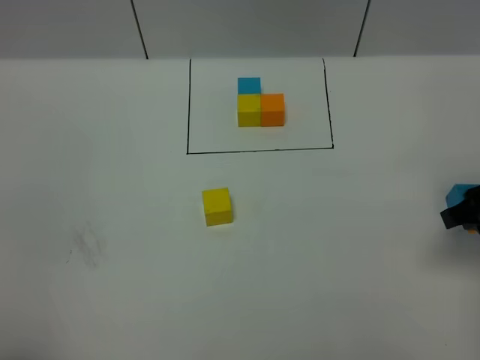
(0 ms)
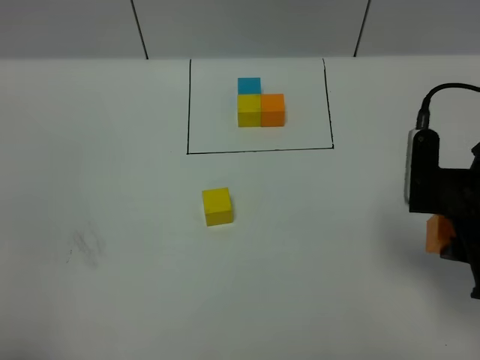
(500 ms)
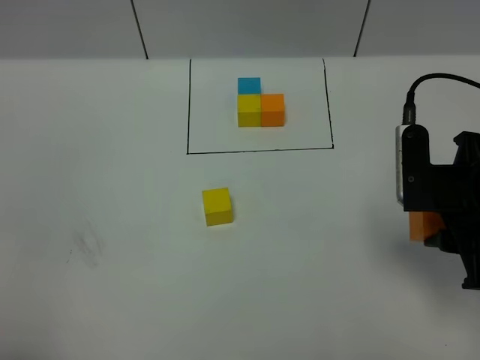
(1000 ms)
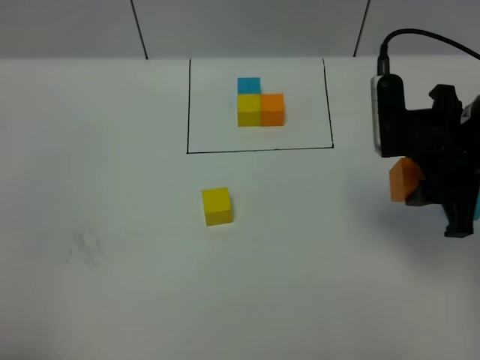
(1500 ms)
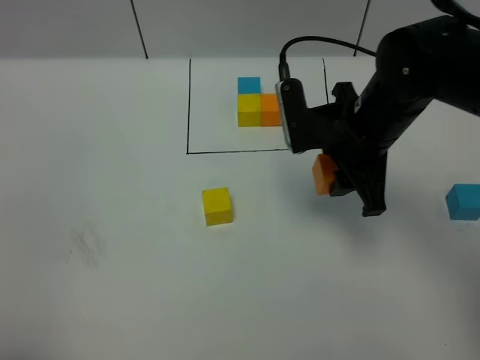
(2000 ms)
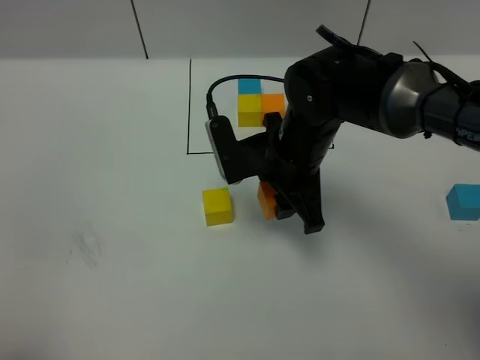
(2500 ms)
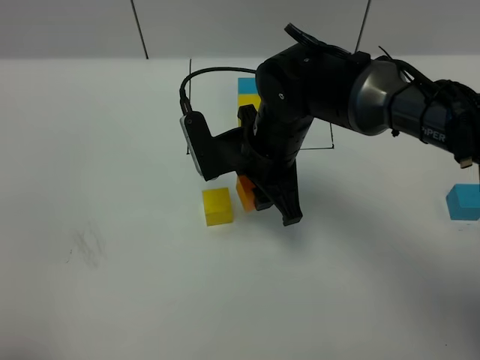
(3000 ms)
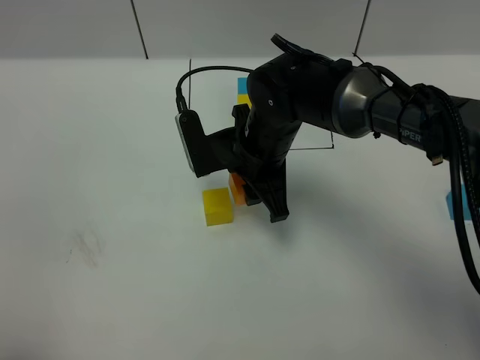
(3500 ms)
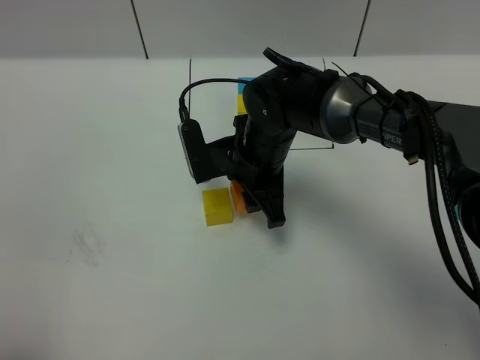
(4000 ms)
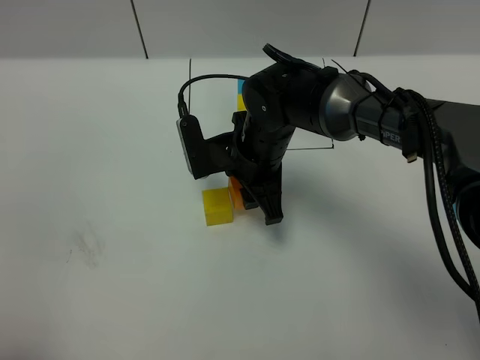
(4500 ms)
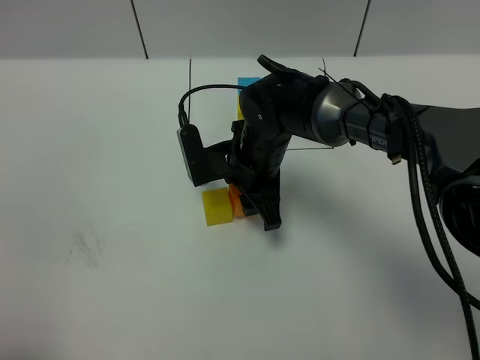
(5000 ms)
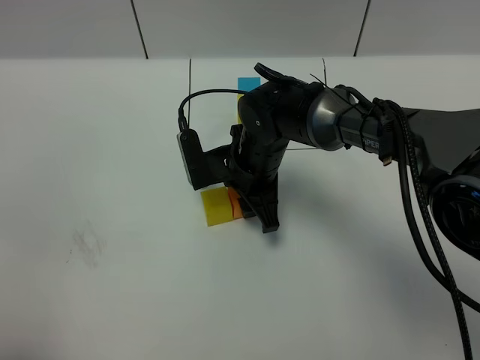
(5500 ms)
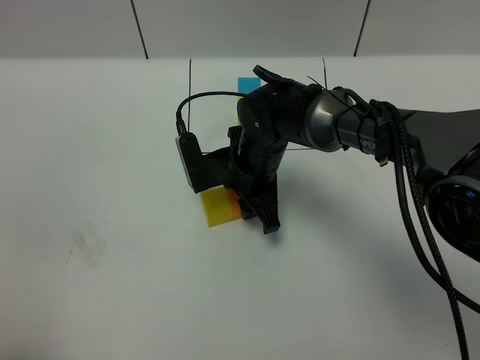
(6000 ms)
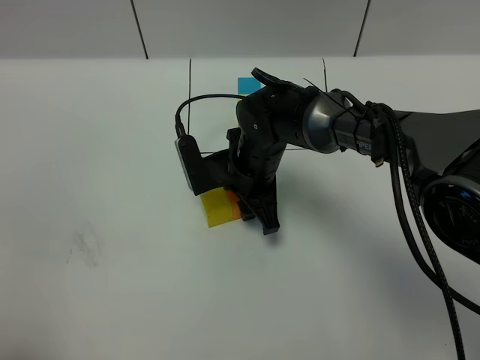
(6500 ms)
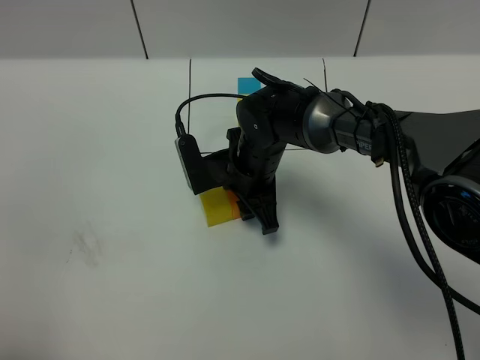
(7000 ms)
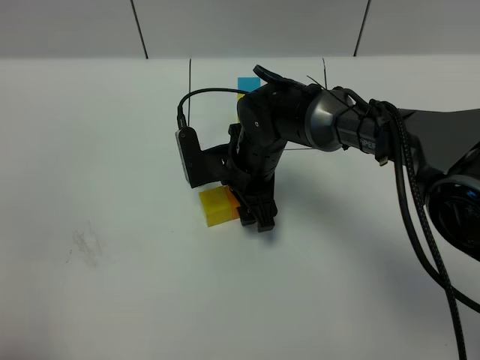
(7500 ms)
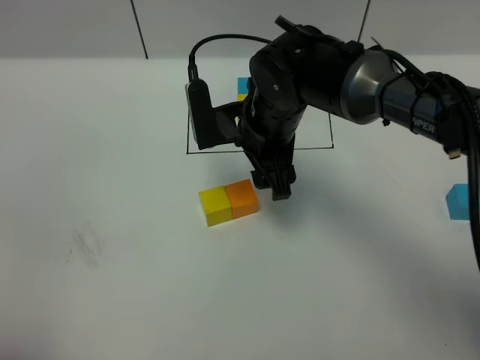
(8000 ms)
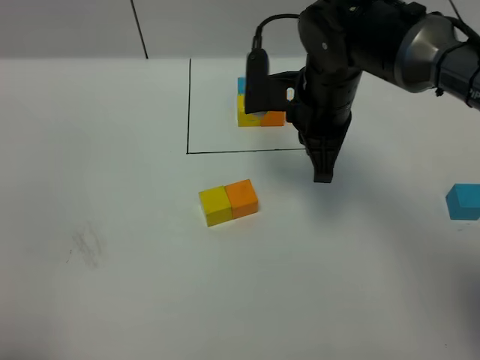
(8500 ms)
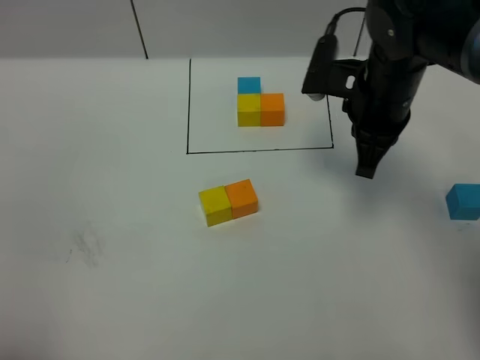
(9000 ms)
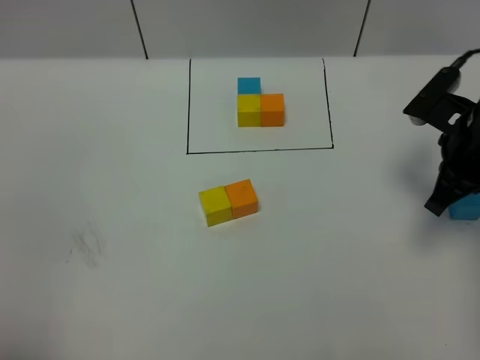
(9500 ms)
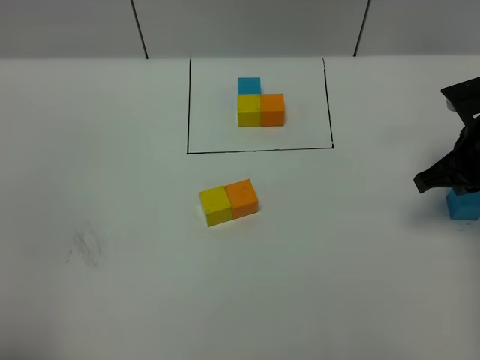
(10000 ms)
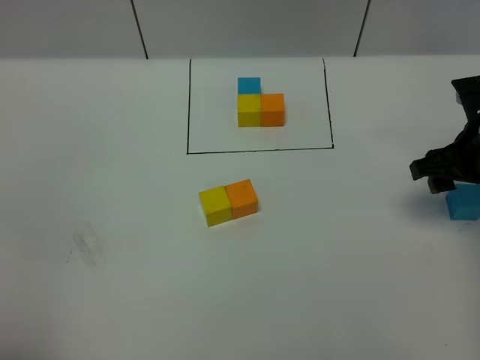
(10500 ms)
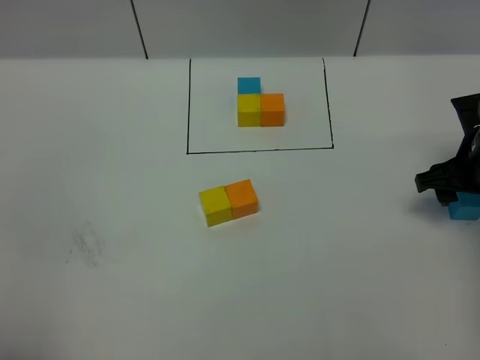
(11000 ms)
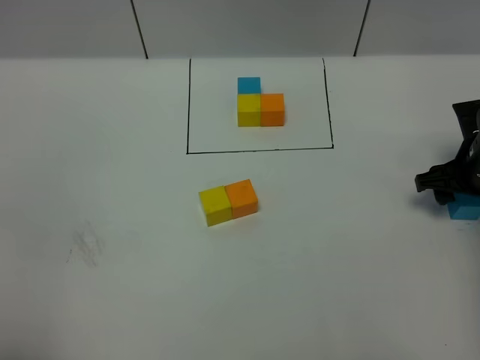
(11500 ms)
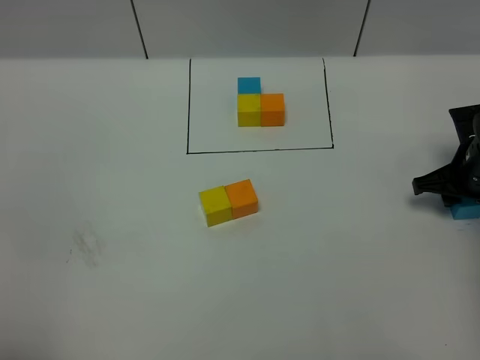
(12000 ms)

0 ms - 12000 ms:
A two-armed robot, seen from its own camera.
Task of the whole recording: According to the building block template in front, assemble the scattered blocks together.
Step, 0 ms - 7500 ms: Put the orange cube on the right of the yellow cube.
0 ms - 2000 ms: The right gripper travels to the left and forward by about 20 cm.
2000 ms - 4000 ms: The right gripper moves to the left and downward, some 15 cm.
4000 ms - 6000 ms: The grippers make only small movements.
6000 ms - 8000 ms: The right gripper goes roughly 10 cm upward.
8000 ms - 10000 ms: The right gripper is displaced to the right by some 25 cm, and closes its fingers.
10000 ms - 12000 ms: The right gripper goes about 10 cm downward, and opens.

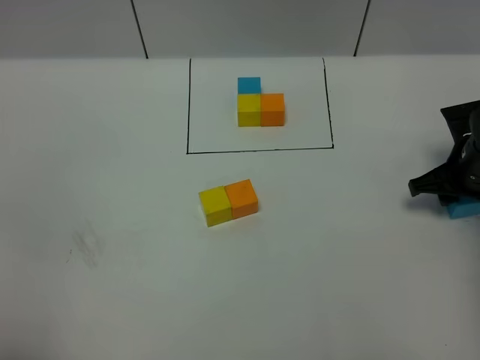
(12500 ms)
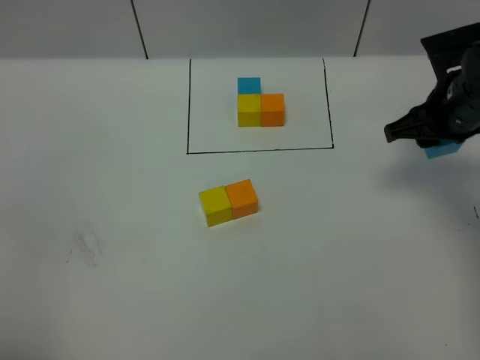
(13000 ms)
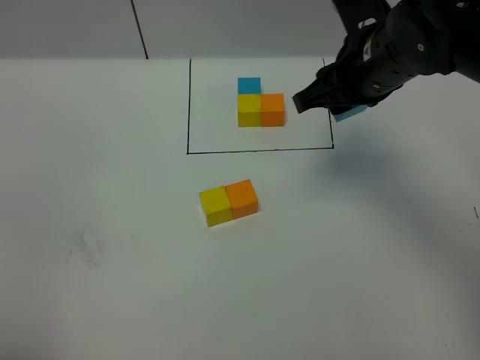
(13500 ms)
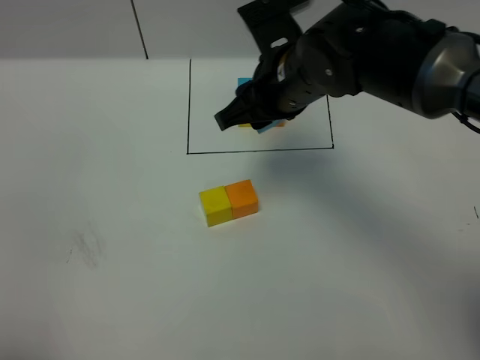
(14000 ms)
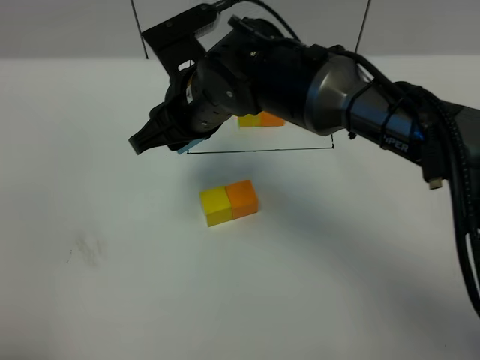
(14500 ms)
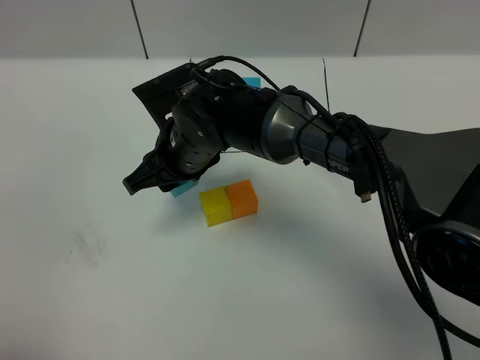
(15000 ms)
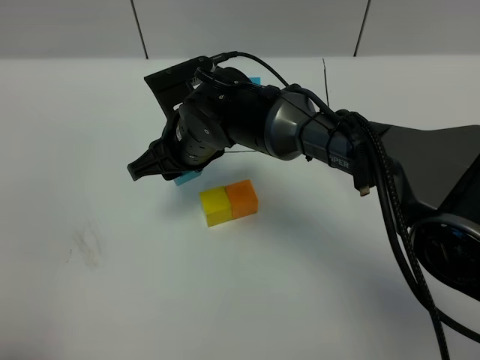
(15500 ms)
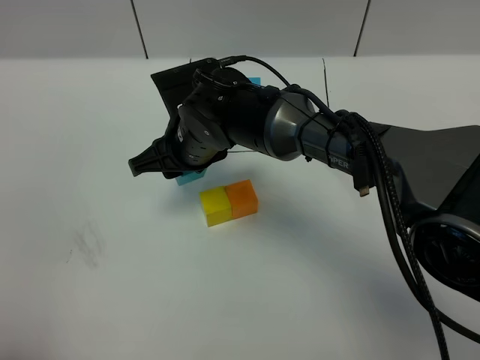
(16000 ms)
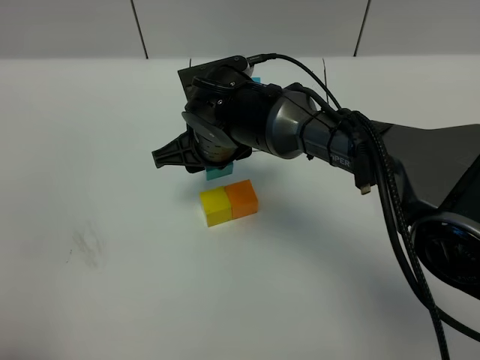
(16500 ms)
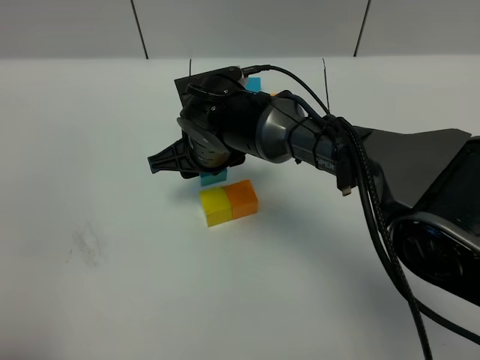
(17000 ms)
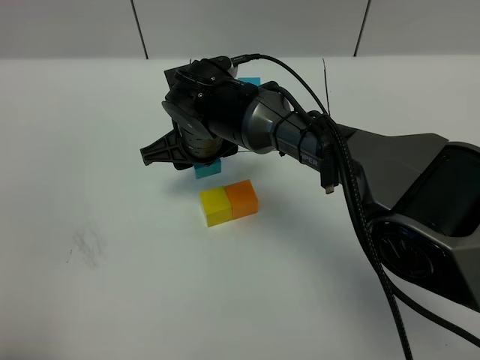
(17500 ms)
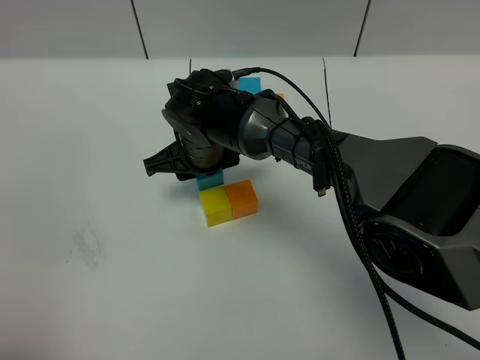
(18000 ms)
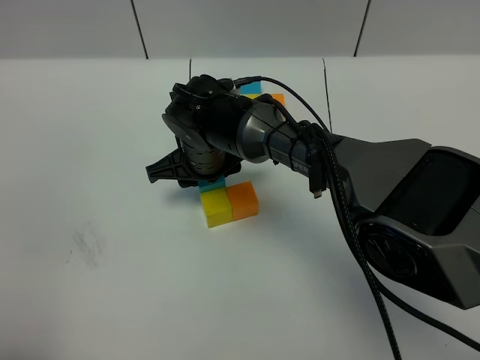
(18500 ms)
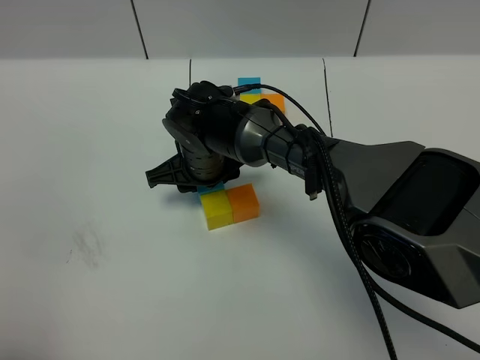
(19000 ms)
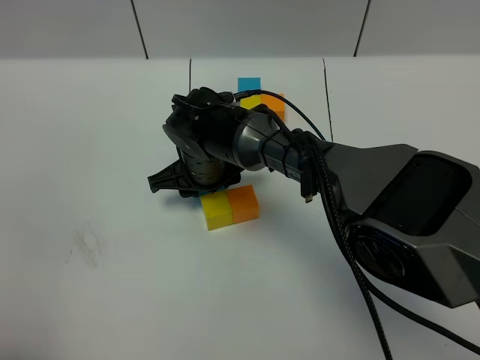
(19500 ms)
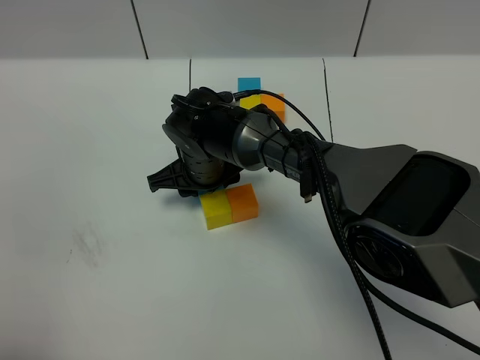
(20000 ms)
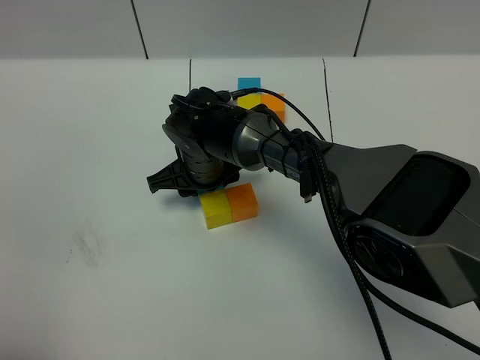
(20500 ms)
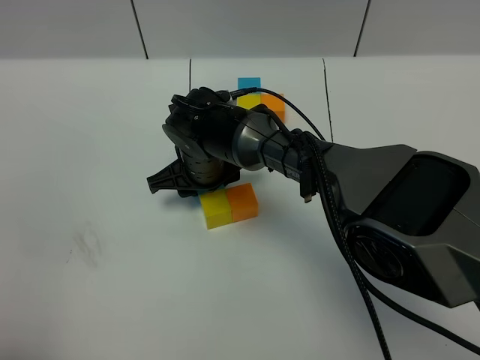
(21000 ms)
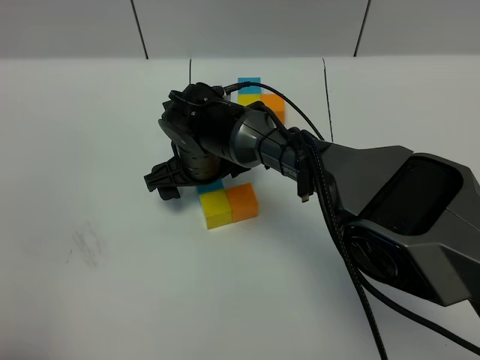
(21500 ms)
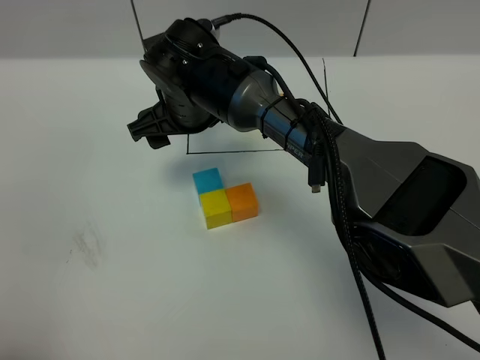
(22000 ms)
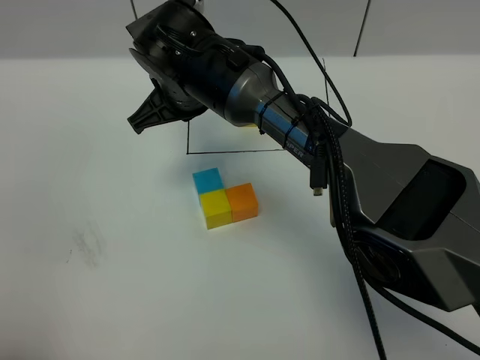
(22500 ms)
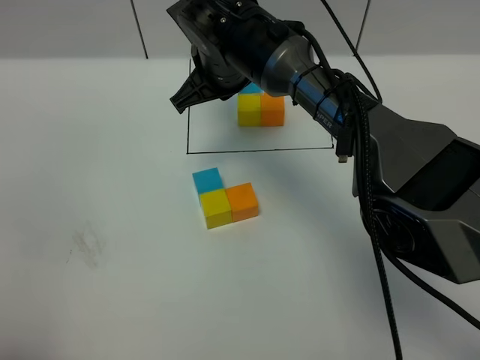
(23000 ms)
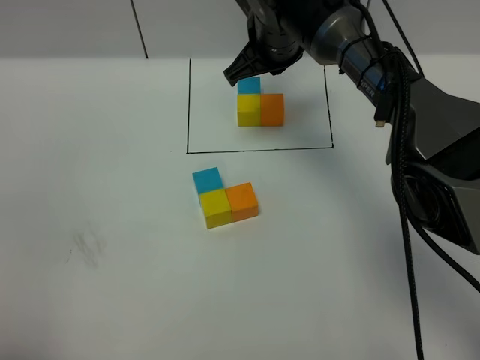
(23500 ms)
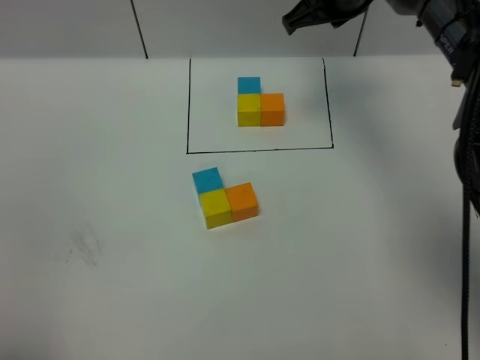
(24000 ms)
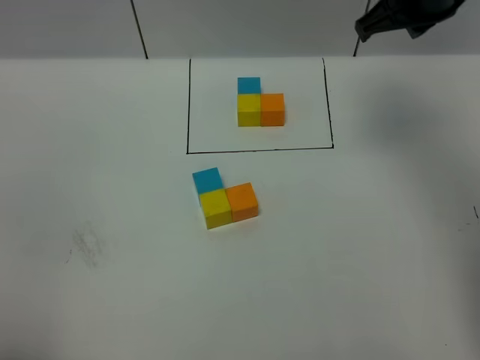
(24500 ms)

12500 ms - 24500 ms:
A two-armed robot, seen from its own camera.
Task of the whole recording: According to the building block template in front, assemble the scattered blocks together.
Step, 12500 ms - 21000 ms: Put the blue cube on the behind of the yellow cube.
12500 ms - 14500 ms: The right gripper heads to the left, covering roughly 35 cm.
14500 ms - 16500 ms: The right gripper is displaced downward by about 5 cm.
16500 ms - 18500 ms: The grippers make only small movements.
18500 ms - 20500 ms: There are only small adjustments of the grippers.
20500 ms - 22500 ms: The right gripper heads upward, covering roughly 10 cm, and closes up.
22500 ms - 24500 ms: The right gripper moves to the right, about 25 cm.

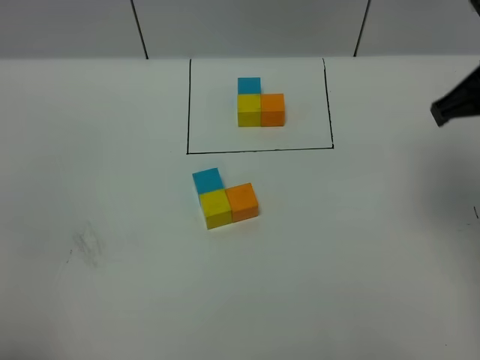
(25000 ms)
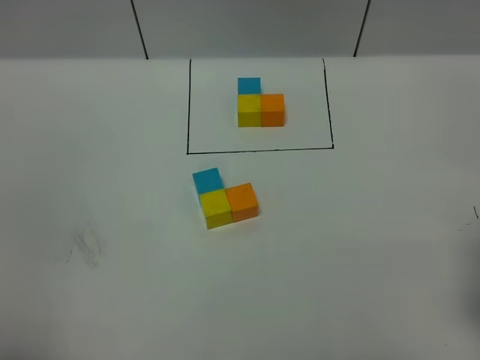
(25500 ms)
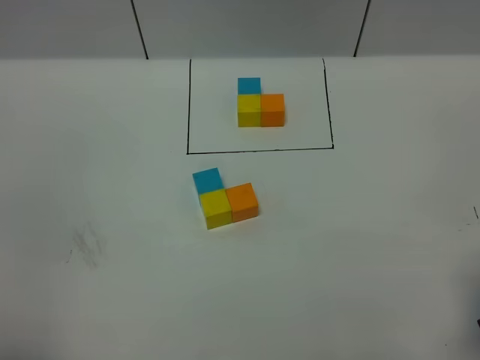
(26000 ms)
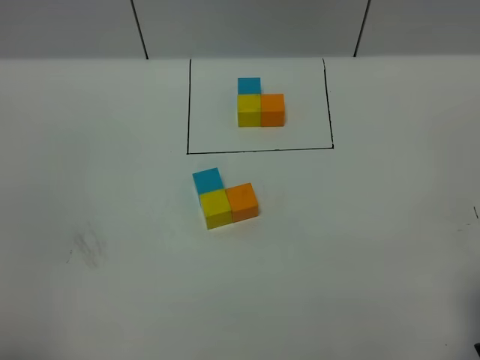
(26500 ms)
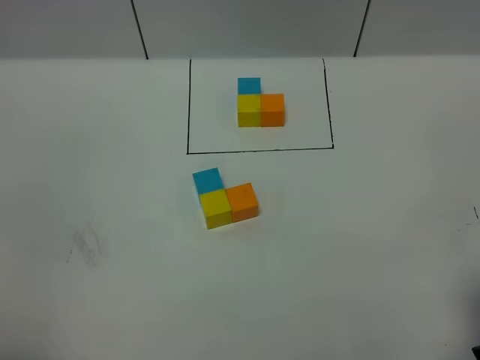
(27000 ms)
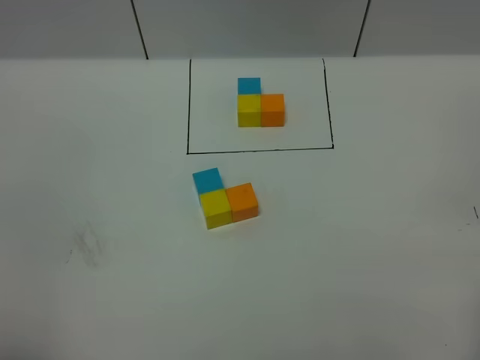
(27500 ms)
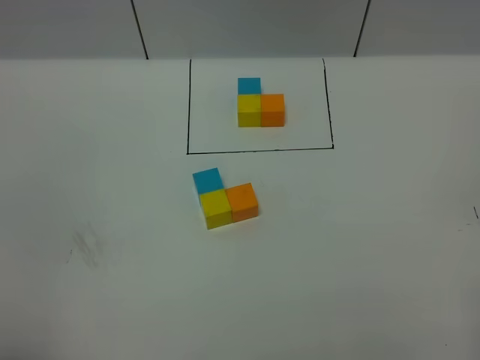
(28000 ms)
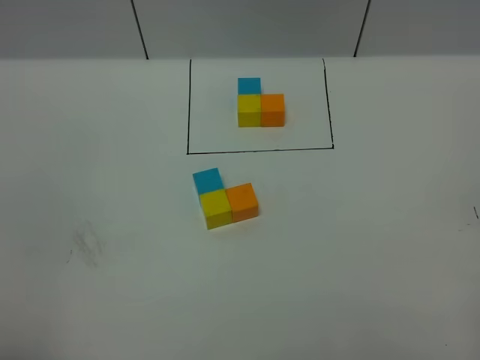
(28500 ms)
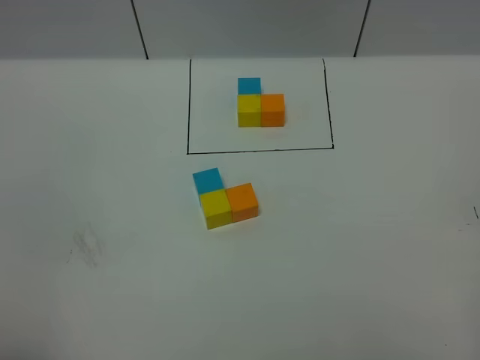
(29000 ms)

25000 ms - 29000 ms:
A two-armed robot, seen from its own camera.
Task of the whole recording: According to the building block template in front, assemble the scattered blocks together.
25000 ms - 27000 ms: The right gripper goes some 20 cm backward and downward.
